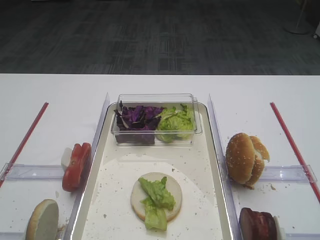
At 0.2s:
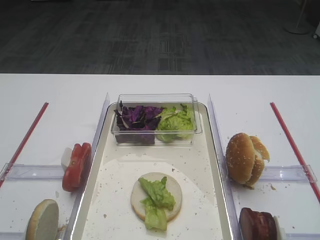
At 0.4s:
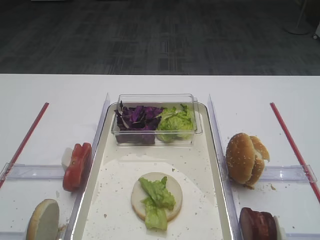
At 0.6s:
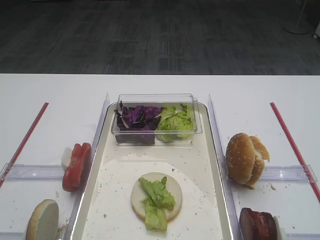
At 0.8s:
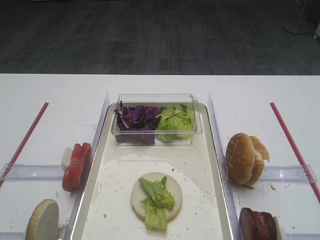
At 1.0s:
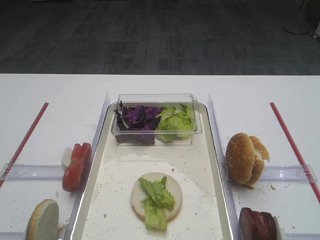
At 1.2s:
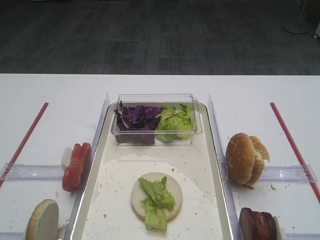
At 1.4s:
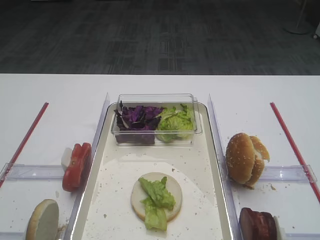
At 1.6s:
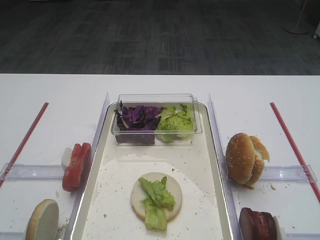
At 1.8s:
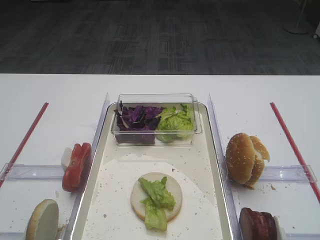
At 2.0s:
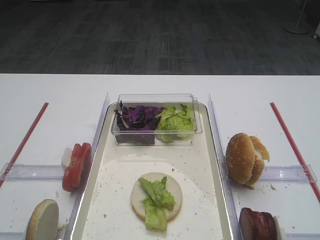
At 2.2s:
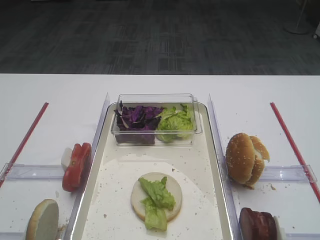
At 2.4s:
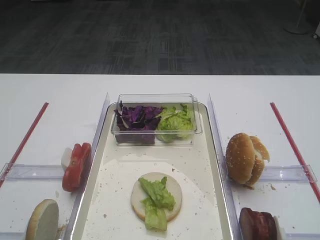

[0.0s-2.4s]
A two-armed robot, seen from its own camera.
1.2s to 2.4s: The two grippers keep their place.

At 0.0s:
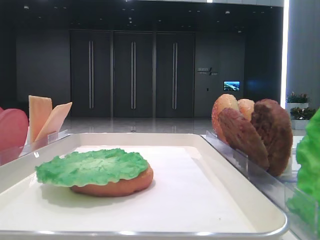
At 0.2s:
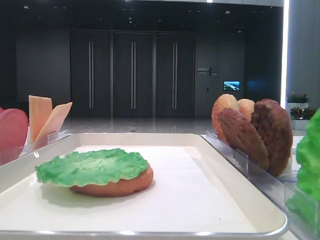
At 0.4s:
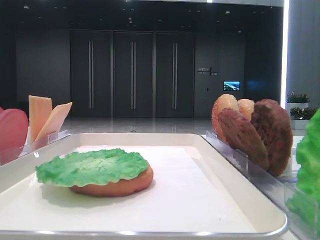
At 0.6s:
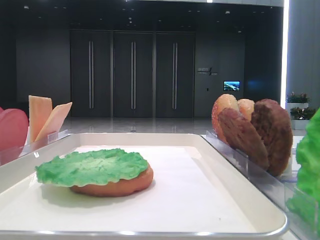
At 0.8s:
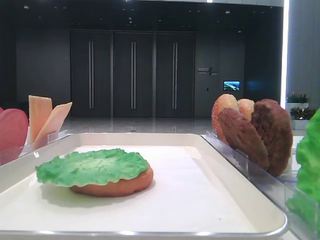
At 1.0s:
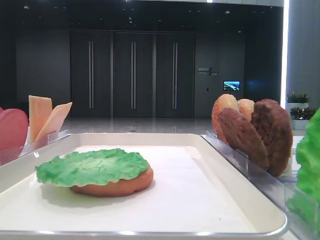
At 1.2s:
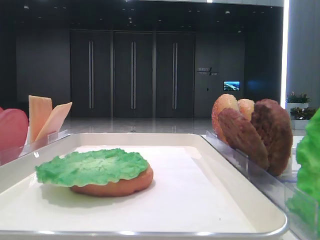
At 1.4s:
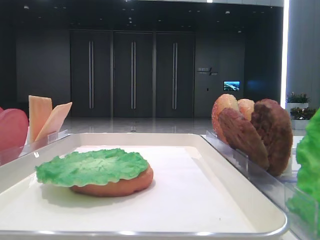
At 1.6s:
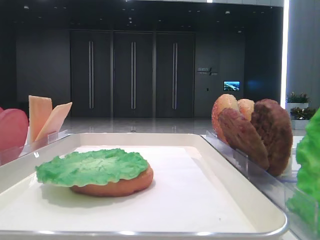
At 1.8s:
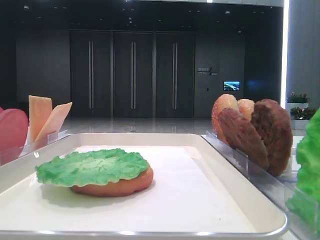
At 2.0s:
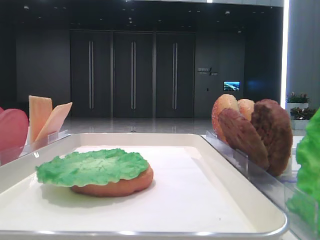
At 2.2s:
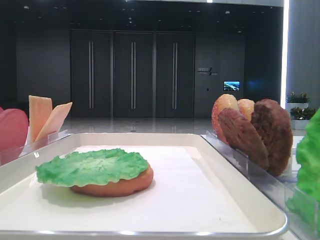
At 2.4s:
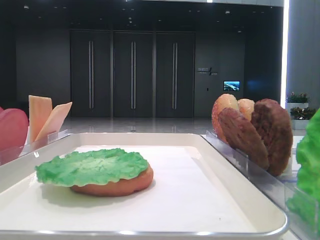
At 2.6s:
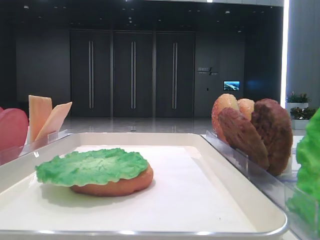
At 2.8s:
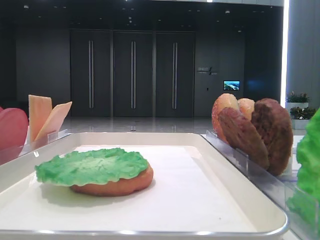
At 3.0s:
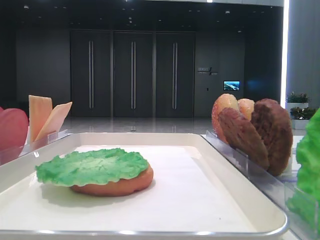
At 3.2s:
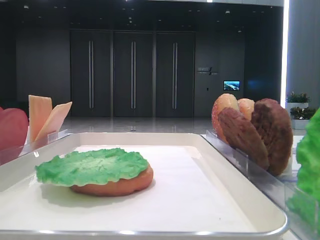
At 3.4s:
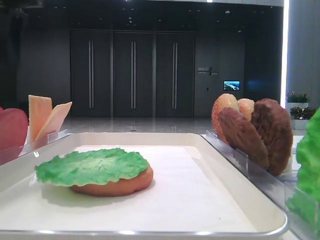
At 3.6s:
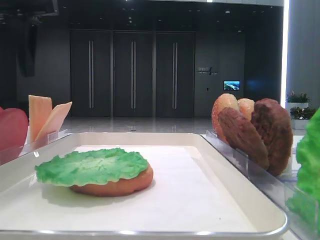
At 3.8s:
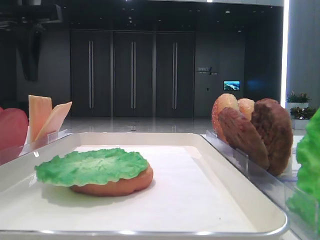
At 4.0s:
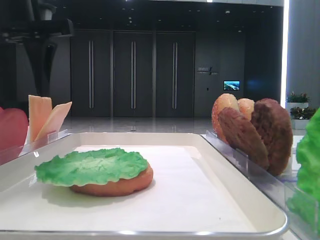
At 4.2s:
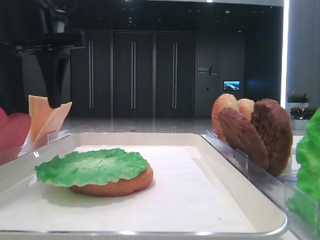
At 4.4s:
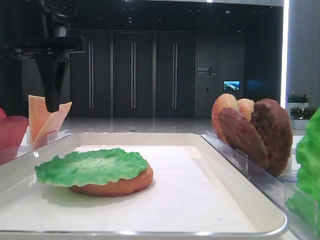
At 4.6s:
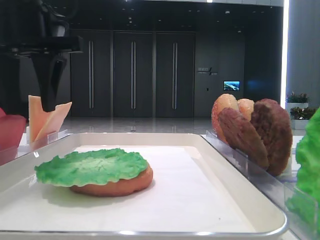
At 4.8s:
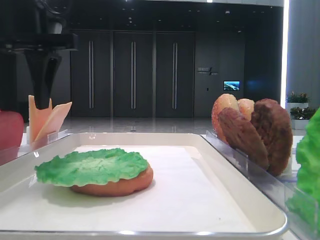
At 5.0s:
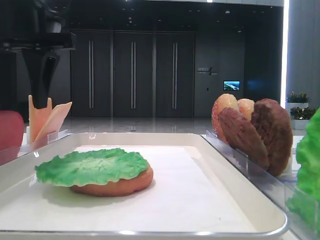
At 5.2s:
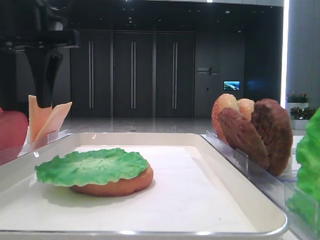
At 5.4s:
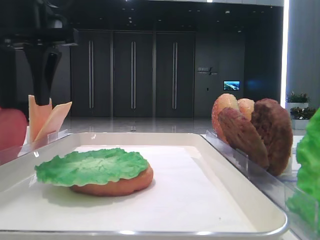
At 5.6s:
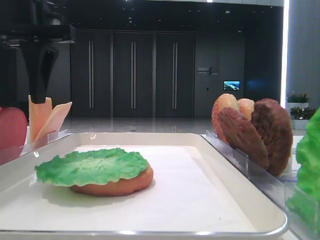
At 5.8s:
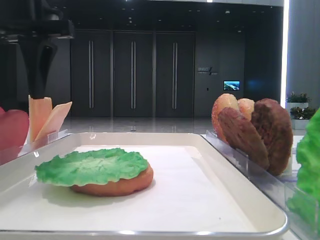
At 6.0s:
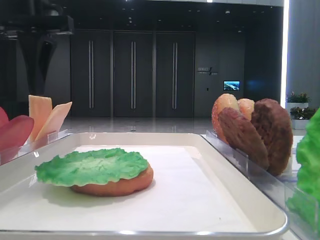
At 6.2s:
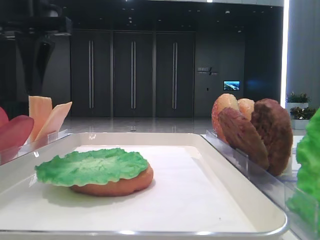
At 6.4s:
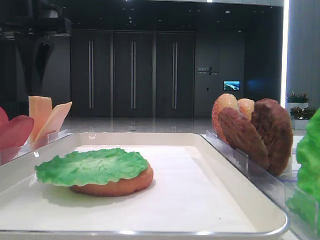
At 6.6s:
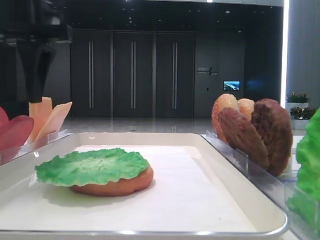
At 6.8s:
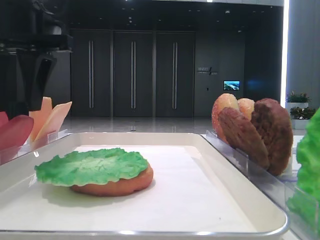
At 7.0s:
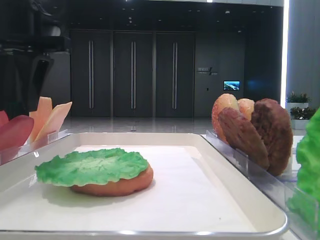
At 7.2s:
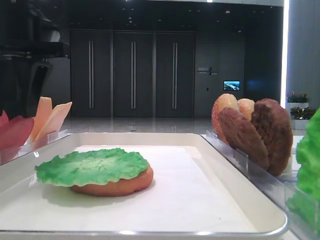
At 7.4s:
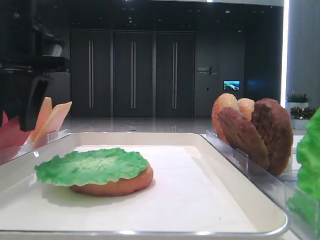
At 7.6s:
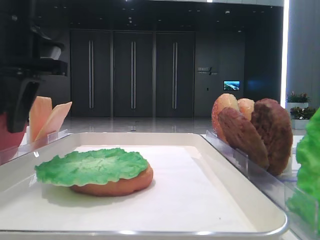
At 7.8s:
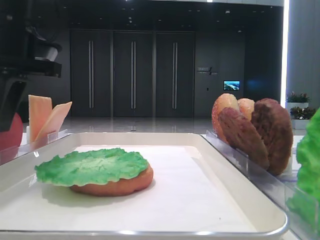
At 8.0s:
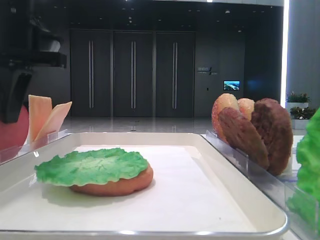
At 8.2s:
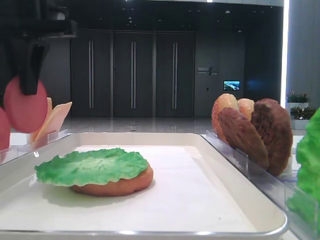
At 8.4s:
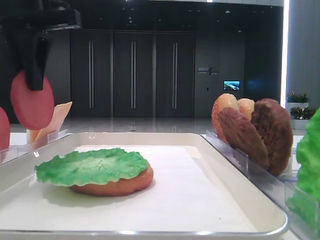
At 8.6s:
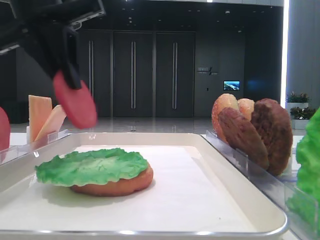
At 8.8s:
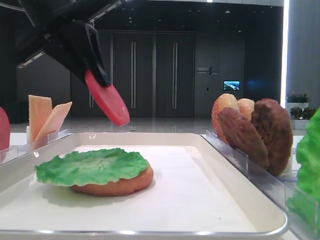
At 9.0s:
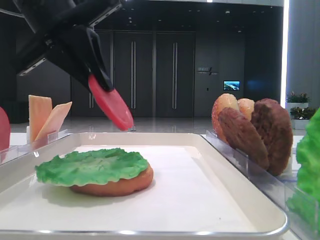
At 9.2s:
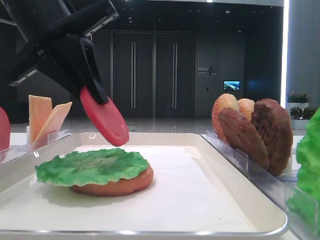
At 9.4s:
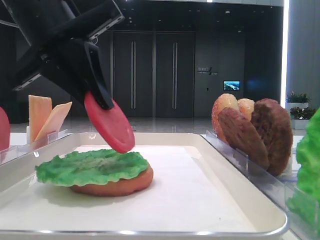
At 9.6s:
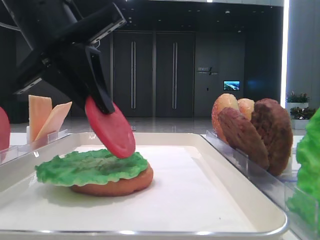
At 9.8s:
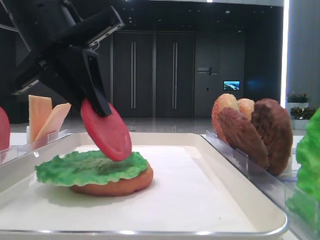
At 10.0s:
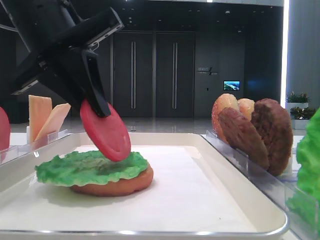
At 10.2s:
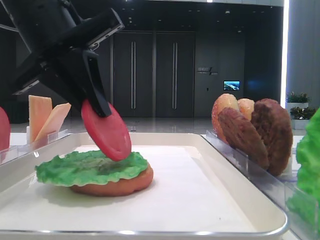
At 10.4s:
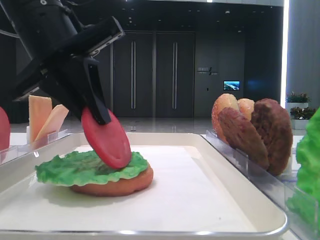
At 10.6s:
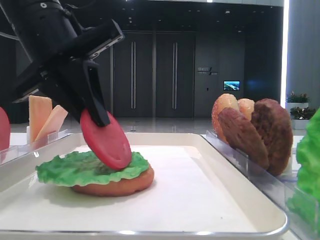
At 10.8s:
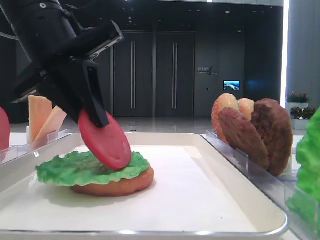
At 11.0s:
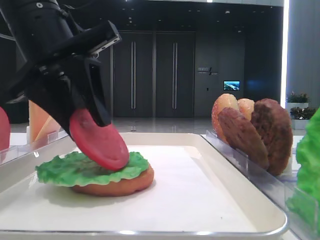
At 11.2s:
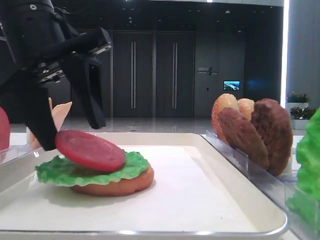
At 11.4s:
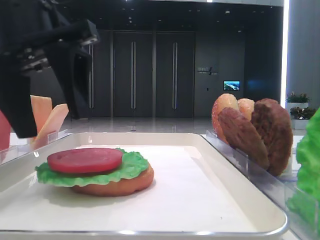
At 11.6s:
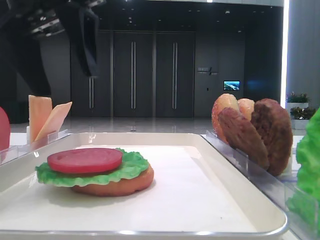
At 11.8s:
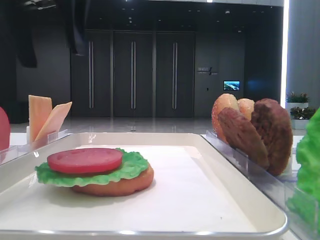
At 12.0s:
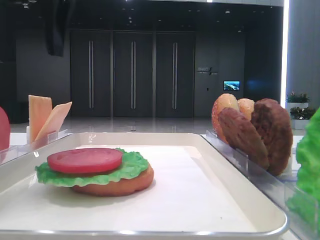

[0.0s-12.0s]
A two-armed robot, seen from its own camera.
Step, 0.0s to 7.6s: Pick up the tomato slice with the left hand.
Step, 7.8s to 11.2s: Place the tomato slice on the lettuce leaf with the left hand.
3.0s to 4.4s: The left gripper moves to the right, about 10 cm.
4.4s to 7.6s: There are only small adjustments of the grippers.
7.6s to 9.0s: The left gripper shifts by about 5 cm, and closes.
9.0s to 10.4s: The grippers make only small movements.
10.4s to 12.0s: The left gripper goes approximately 10 cm upward, and opens its fingers.

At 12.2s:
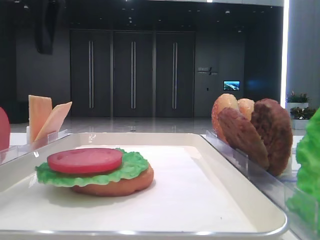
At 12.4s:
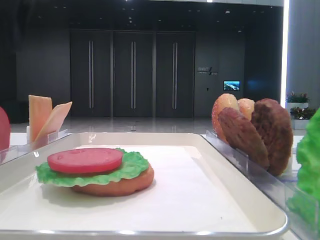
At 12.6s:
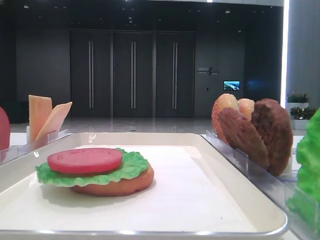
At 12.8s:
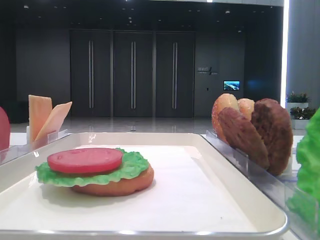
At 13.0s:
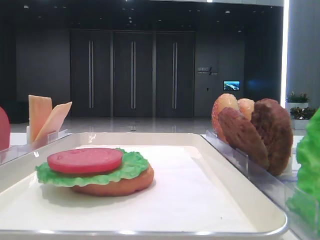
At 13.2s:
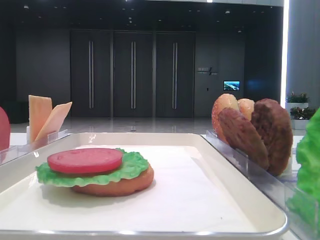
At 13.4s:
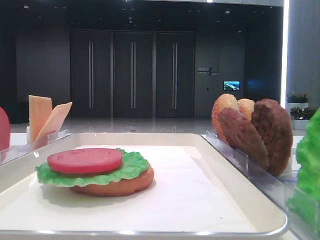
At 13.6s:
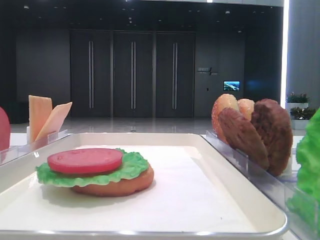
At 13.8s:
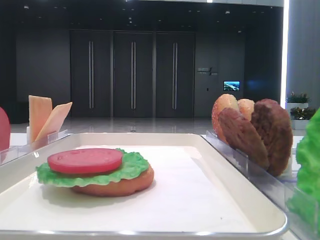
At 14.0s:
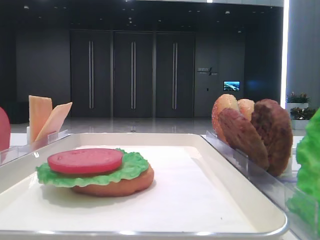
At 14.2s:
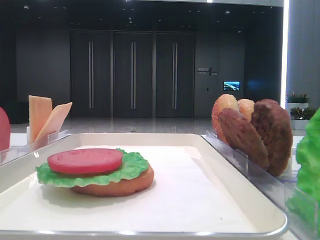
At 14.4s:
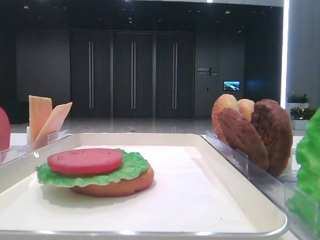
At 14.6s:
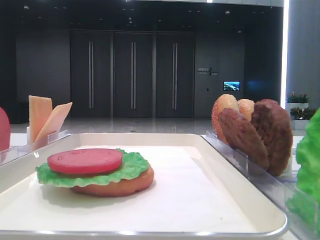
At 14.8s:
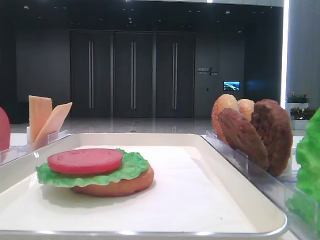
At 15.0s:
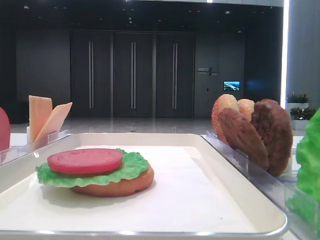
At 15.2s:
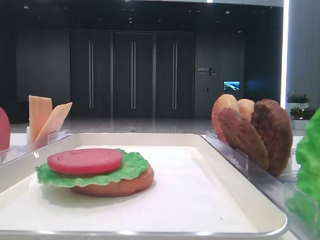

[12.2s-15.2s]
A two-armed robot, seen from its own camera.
12.2s to 13.8s: The left gripper travels backward and to the left by about 25 cm.

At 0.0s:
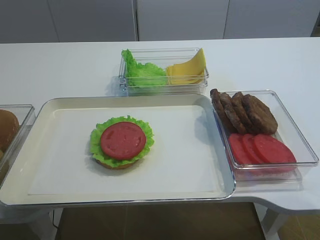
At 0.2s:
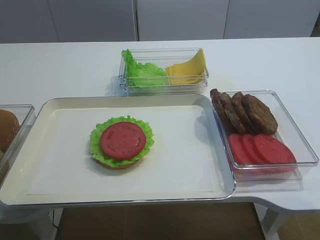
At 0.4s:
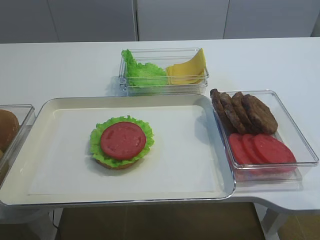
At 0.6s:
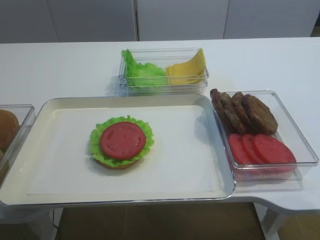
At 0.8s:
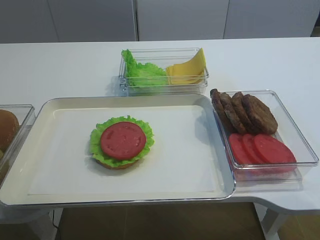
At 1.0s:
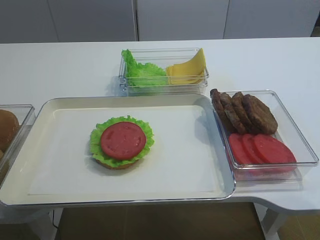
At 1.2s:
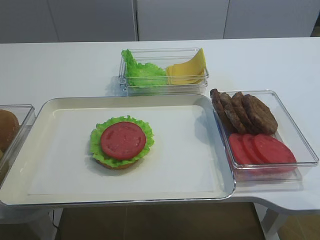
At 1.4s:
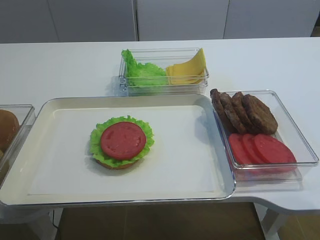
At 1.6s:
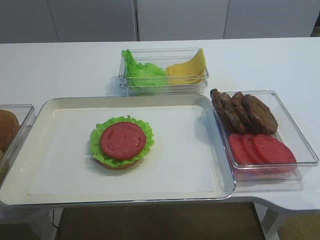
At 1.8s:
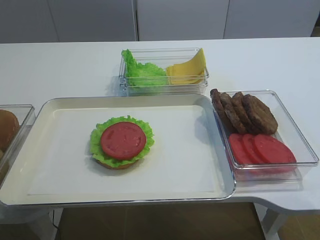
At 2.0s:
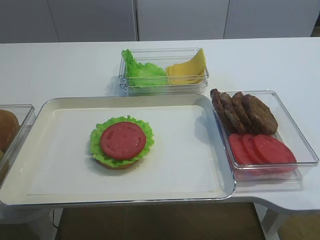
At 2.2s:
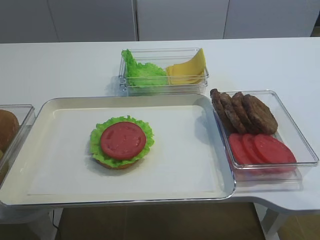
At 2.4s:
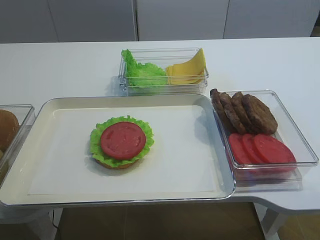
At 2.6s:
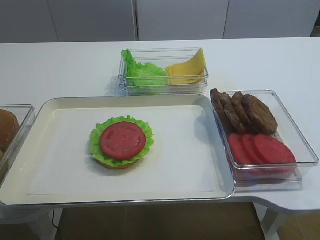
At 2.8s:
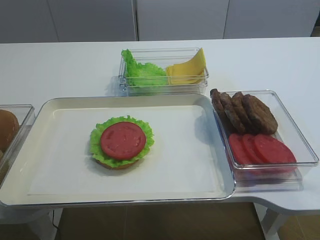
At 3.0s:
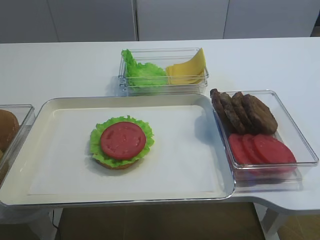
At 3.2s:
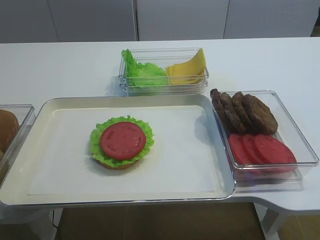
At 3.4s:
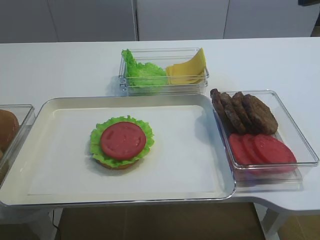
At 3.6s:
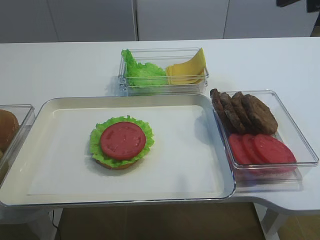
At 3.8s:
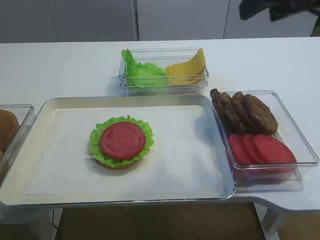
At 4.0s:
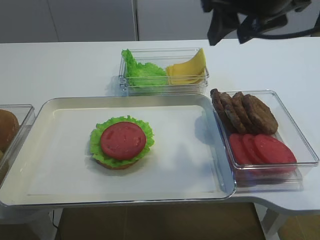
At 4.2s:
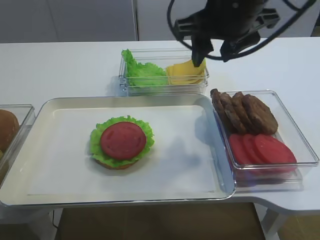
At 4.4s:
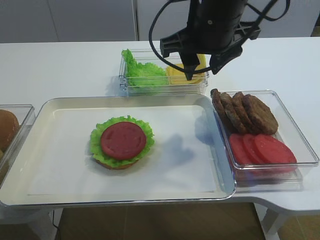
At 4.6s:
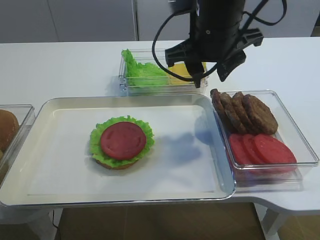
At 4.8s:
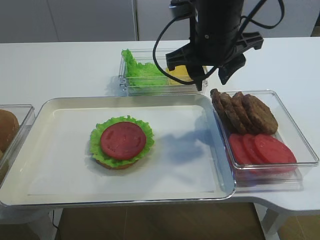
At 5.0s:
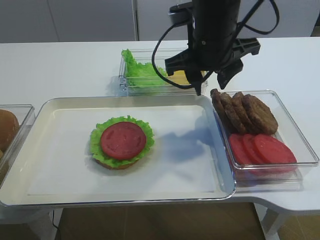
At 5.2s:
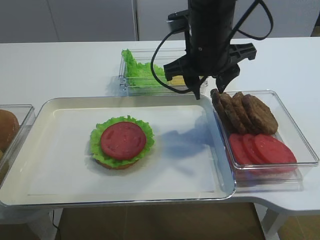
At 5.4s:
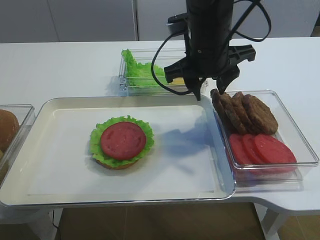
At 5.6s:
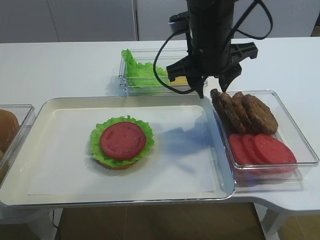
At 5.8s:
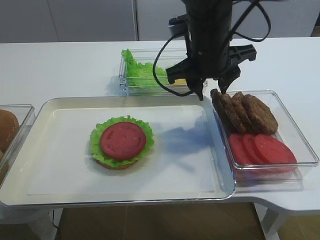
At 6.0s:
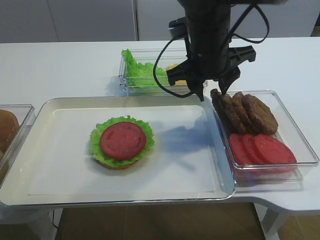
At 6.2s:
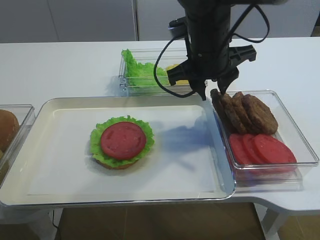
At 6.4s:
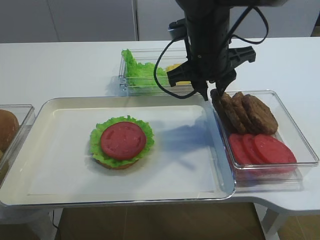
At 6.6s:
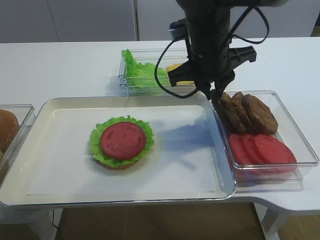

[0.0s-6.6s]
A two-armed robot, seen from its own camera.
1.6s to 3.2s: The right gripper shifts roughly 20 cm forward and upward, and opens.
3.2s to 5.0s: The right gripper moves to the left, forward and downward, about 25 cm.
5.0s to 6.6s: The right gripper closes up.
